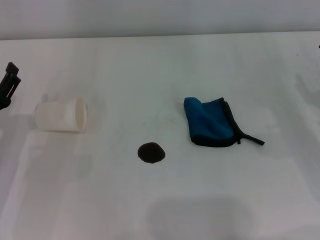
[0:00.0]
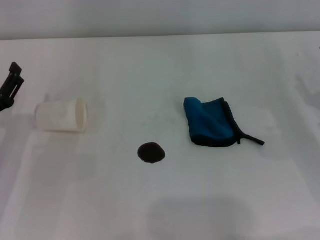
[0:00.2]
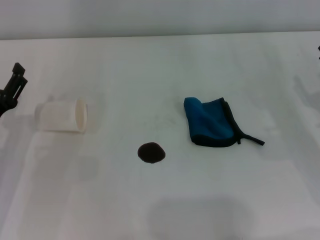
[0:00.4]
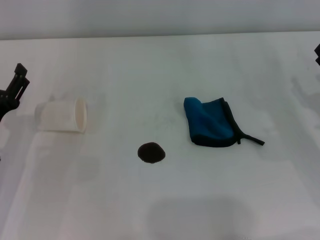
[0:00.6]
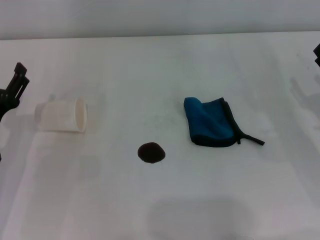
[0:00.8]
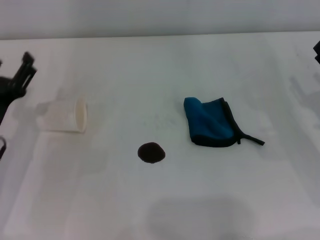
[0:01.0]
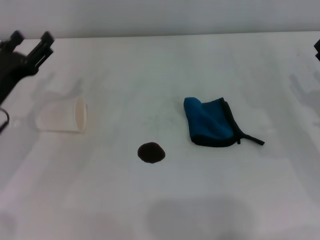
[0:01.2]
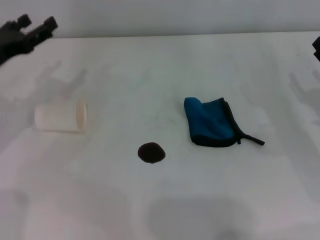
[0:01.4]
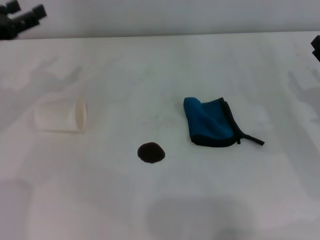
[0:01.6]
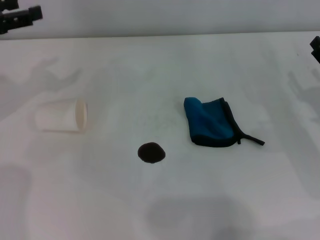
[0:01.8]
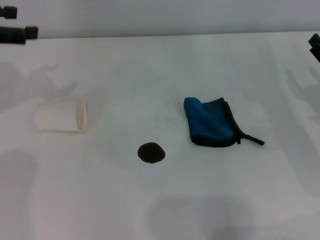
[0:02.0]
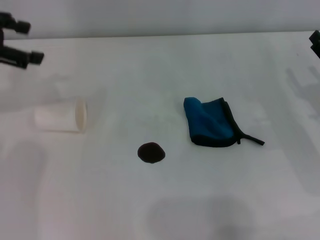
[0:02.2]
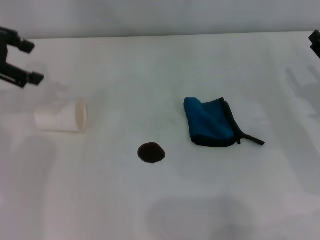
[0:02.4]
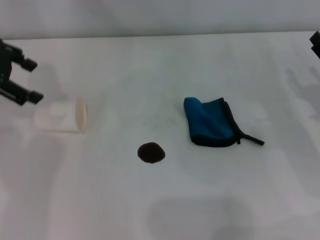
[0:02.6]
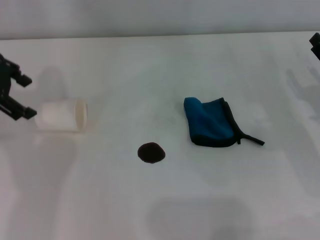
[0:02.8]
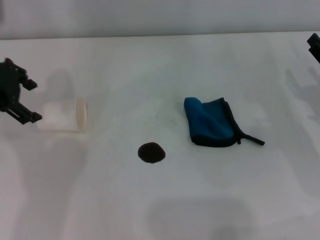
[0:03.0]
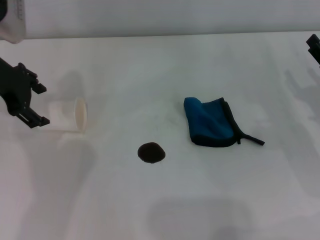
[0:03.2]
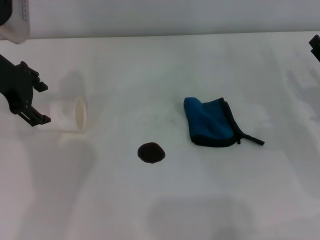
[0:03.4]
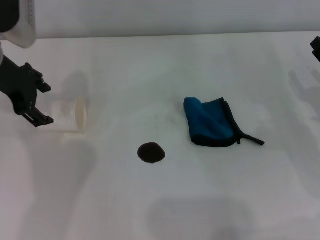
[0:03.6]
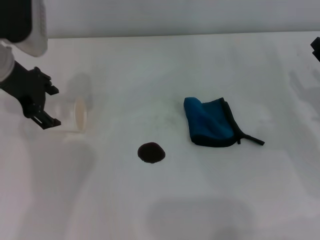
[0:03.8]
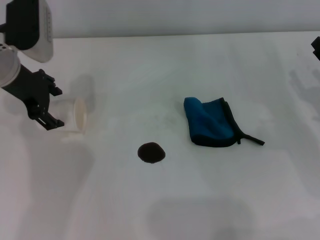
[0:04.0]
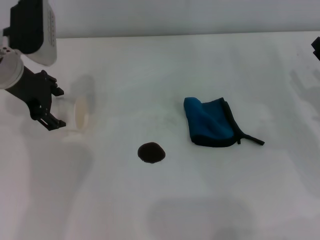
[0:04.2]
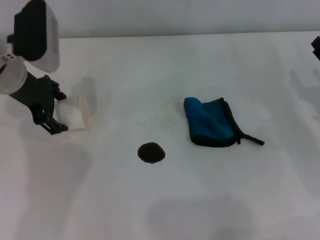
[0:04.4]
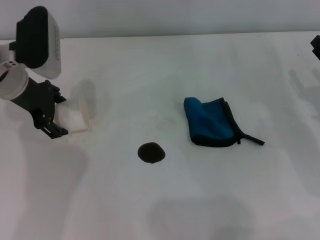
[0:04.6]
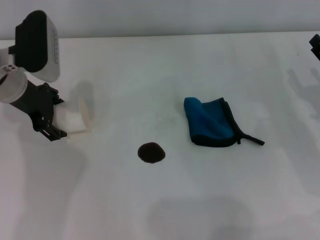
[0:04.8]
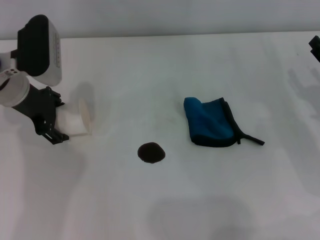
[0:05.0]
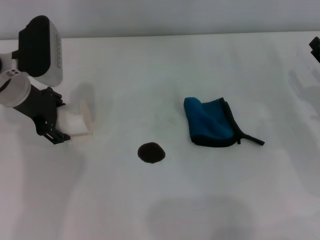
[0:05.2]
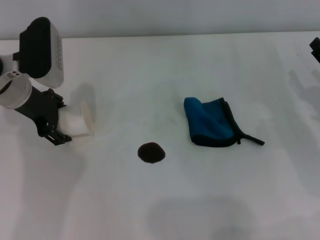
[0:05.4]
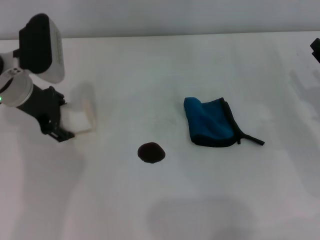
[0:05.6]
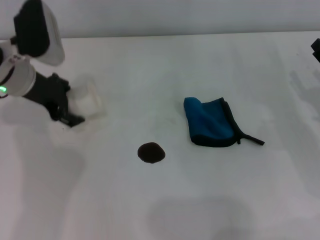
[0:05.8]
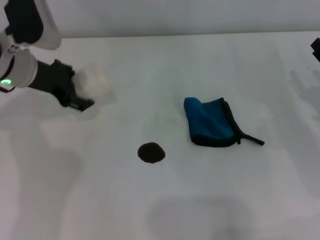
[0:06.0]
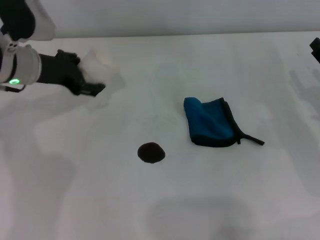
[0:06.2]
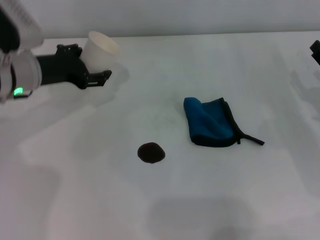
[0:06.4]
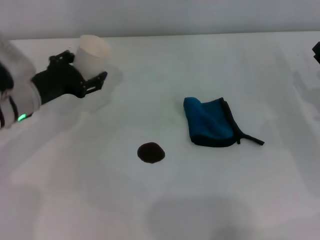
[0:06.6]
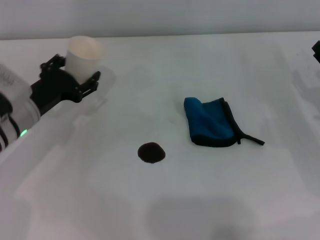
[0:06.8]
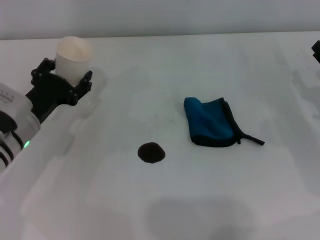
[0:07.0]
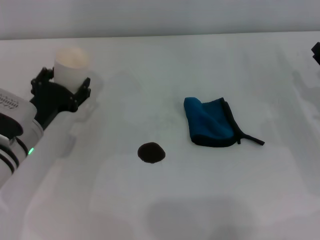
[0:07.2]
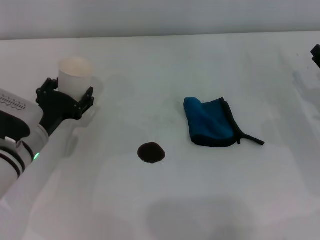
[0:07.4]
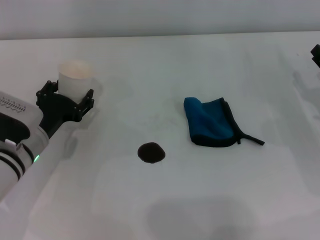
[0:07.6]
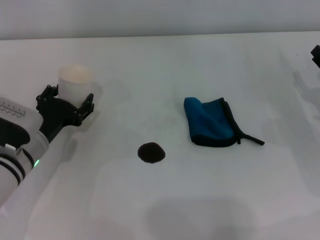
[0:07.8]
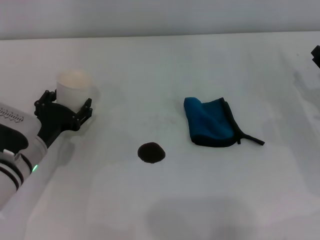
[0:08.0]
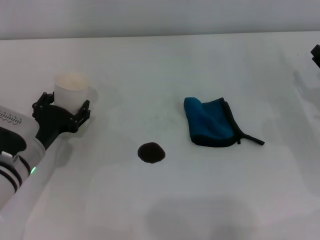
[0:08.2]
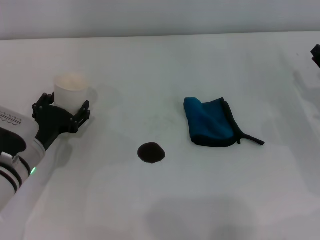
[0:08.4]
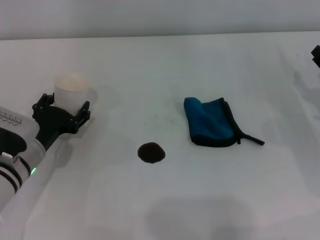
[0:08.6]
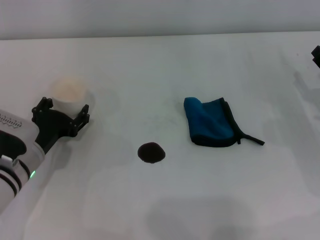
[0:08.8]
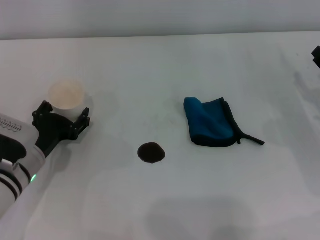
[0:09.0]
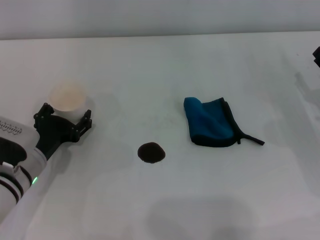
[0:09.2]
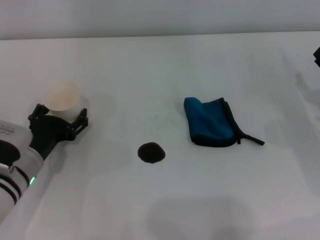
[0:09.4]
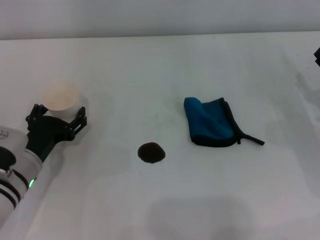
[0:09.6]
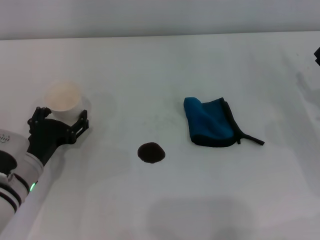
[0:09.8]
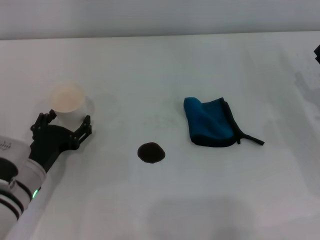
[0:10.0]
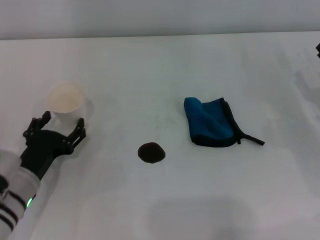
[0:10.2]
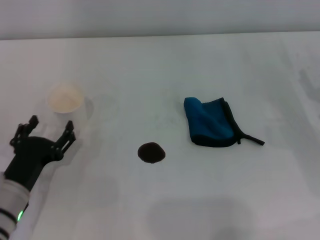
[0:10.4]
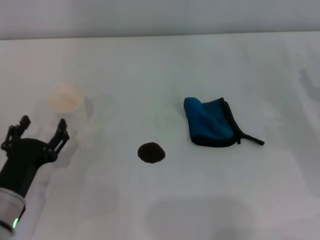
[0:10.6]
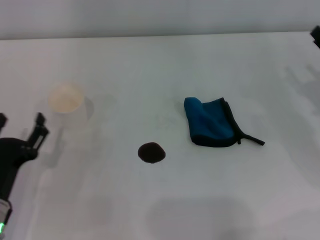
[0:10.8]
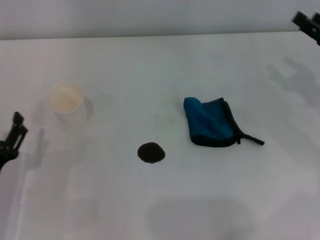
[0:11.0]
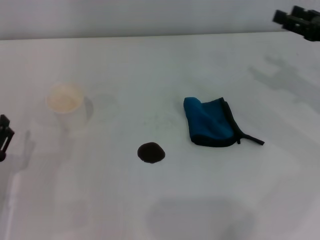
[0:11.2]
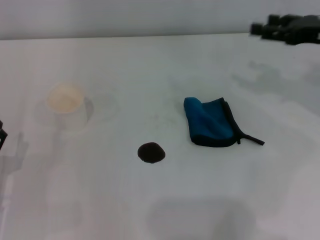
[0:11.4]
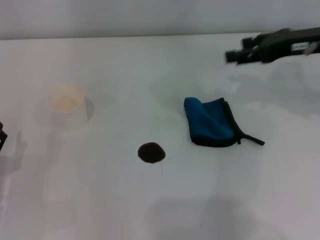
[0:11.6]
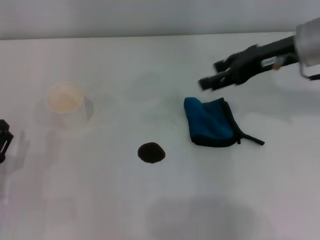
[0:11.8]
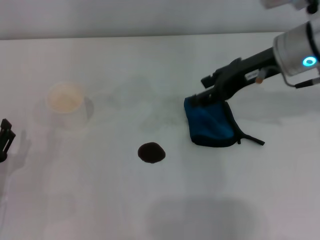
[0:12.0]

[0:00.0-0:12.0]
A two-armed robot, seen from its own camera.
Step, 0:00.0 to 0:05.0: Grasp the paper cup with the left gripper.
Step, 0:05.2 to 0:09.6: Stand the paper cup upright with the left gripper.
0:00.0 to 0:01.6: The left gripper goes some 15 cm upward and forward.
0:01.6 to 0:03.0: The left gripper heads upward and to the right, covering roughly 10 cm.
0:03.0 to 0:04.4: The left gripper goes roughly 5 cm downward.
0:06.0 to 0:07.6: The left gripper is displaced downward and backward by about 15 cm.
0:07.6 to 0:09.0: The grippers stay close to where they were, moving slightly.
0:09.0 to 0:10.4: The left gripper shifts about 5 cm backward.
0:10.4 to 0:12.0: The left gripper travels to the left by about 5 cm; the right gripper is displaced upward, to the left and forward by roughly 20 cm.

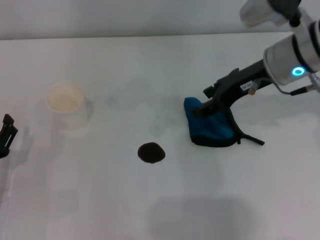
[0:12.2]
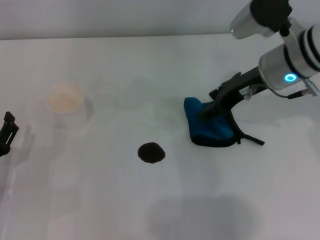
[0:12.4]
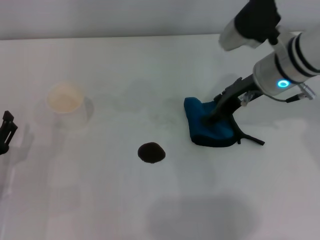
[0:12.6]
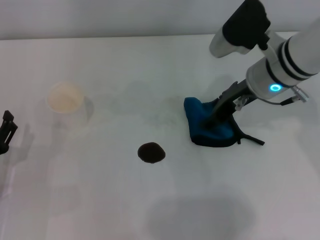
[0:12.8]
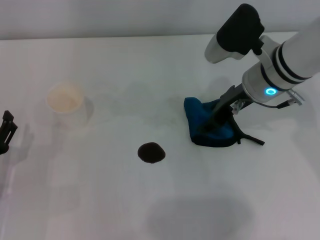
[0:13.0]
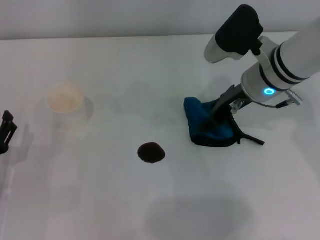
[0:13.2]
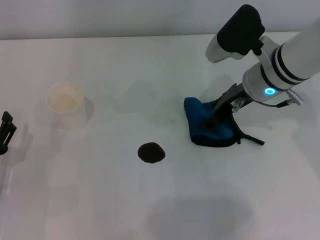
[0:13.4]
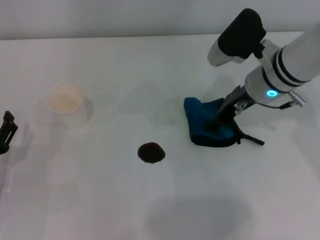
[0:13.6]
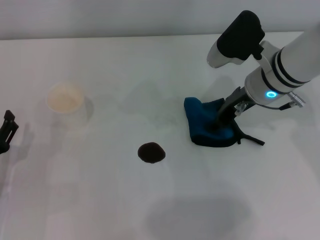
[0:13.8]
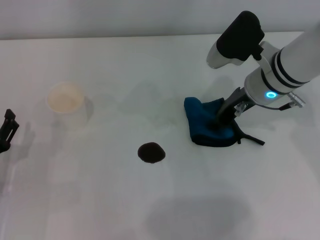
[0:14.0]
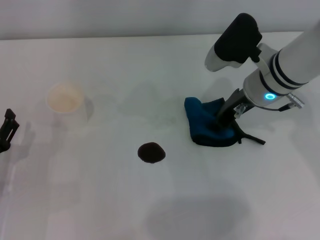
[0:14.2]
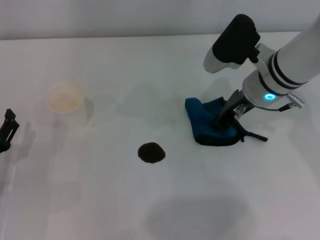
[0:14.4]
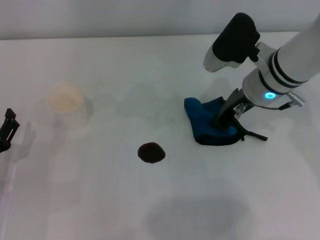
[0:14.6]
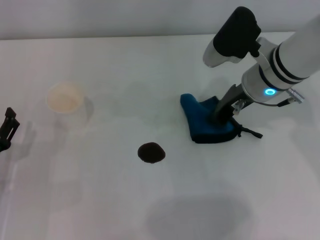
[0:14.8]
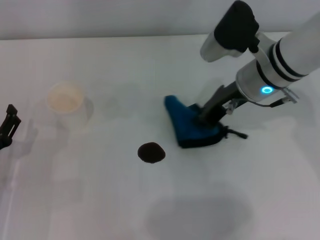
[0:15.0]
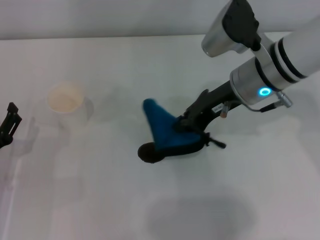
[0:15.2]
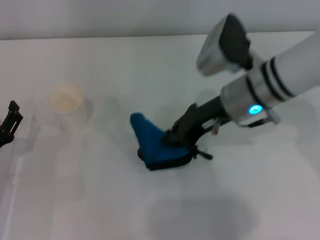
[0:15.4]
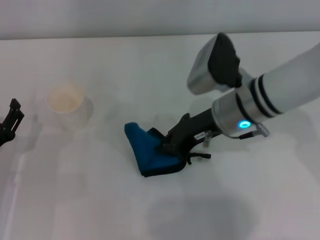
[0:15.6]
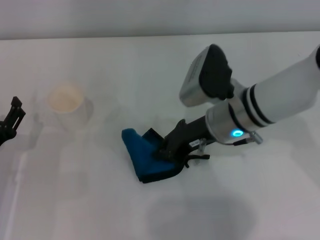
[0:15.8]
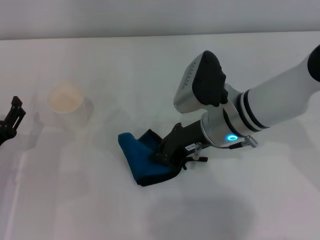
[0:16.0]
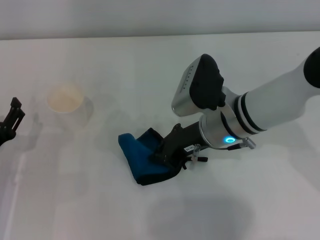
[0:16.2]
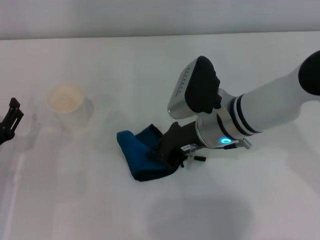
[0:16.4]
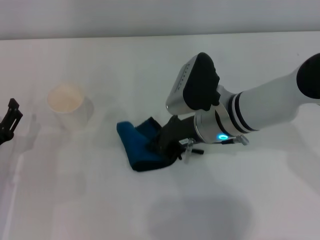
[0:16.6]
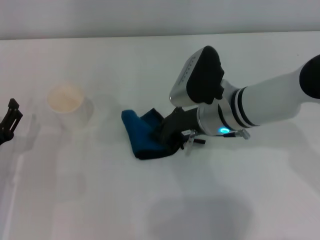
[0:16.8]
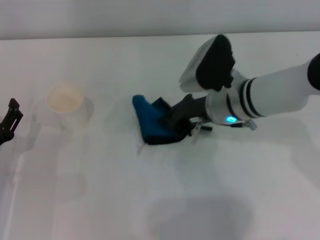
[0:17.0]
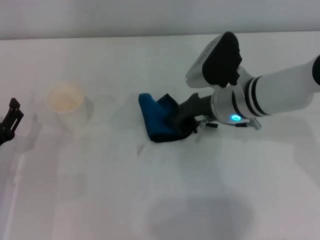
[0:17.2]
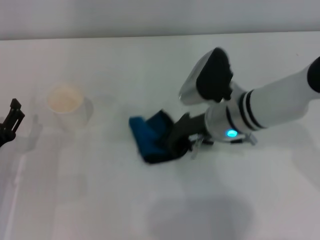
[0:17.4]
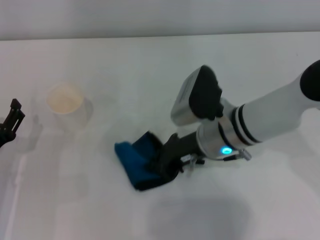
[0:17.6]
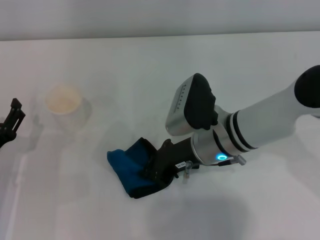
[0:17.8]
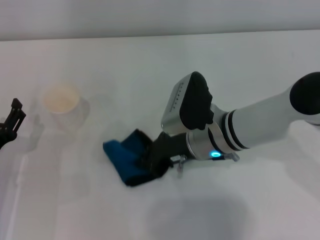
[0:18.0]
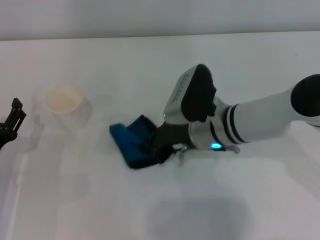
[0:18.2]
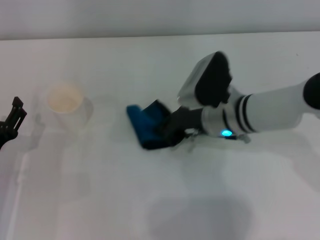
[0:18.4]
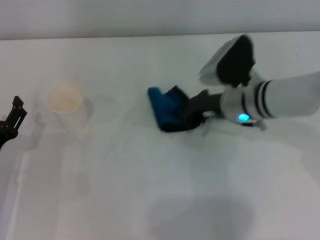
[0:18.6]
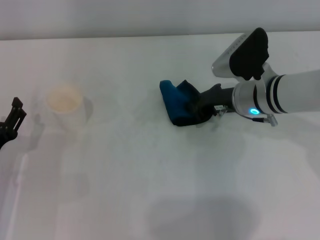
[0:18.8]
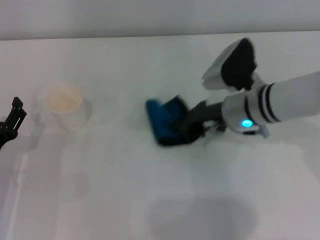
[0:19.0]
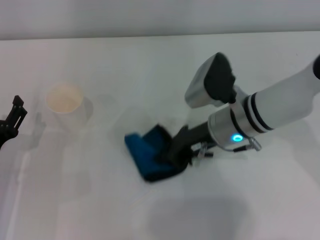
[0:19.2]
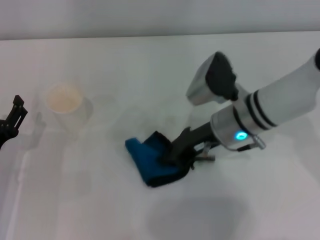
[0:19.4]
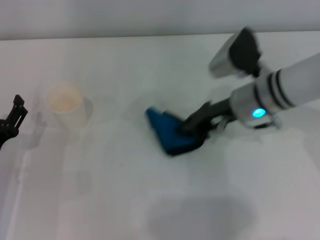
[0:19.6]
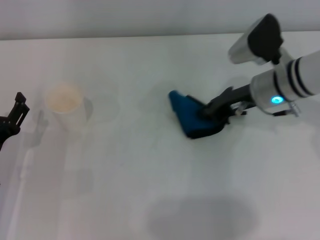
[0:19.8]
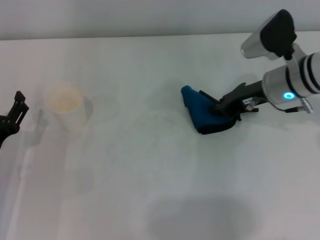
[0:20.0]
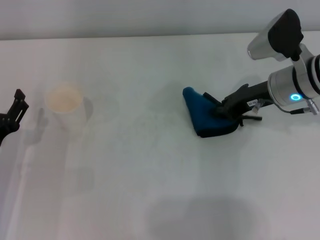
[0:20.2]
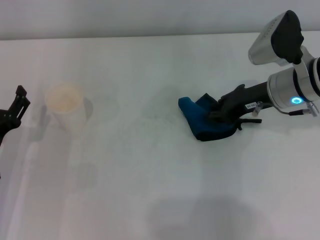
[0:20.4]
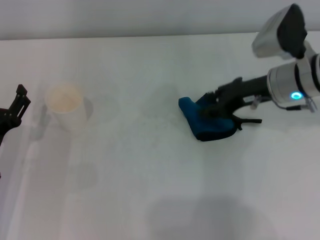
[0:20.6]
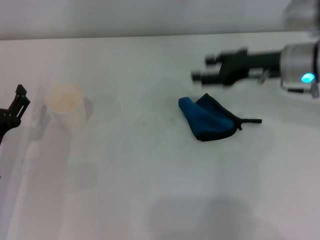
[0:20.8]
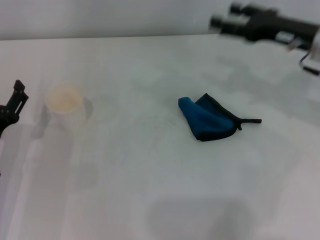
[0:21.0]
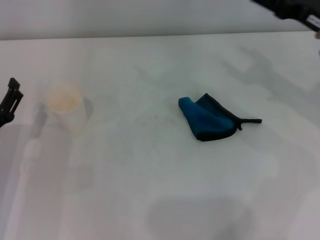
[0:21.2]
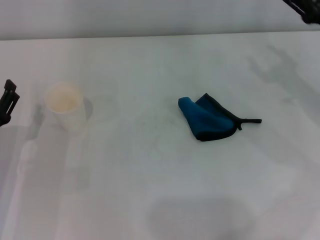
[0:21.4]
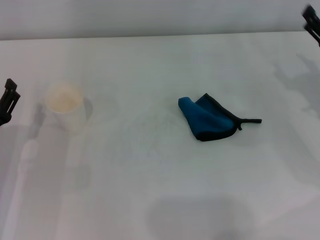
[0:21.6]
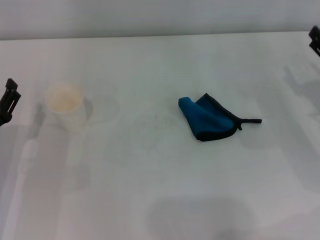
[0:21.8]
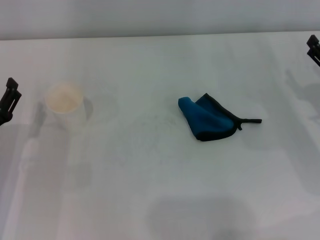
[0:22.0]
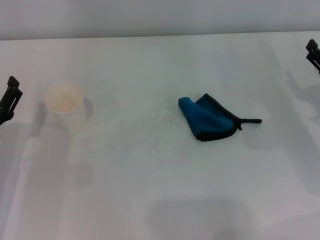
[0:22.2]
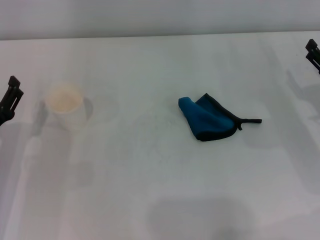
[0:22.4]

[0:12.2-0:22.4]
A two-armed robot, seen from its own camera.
Step, 0:12.2 to 0:14.2: Grasp the rag with the right gripper.
Step, 0:14.4 to 0:19.6: Wipe the stains off the table with the right gripper.
Step, 0:20.0 to 0:20.4: Place the rag on the table with the right gripper.
0:12.2 to 0:13.6: The right gripper travels downward by roughly 5 cm.
0:13.6 to 0:15.2: The right gripper closes.
0:15.2 to 0:16.6: The right gripper shifts about 5 cm downward.
0:16.6 to 0:18.0: The grippers stay close to where they were, moving slightly.
0:19.4 to 0:21.0: The right gripper goes about 15 cm to the right and upward, and opens.
0:21.0 to 0:22.4: The right gripper shifts about 15 cm downward, backward and to the right.
